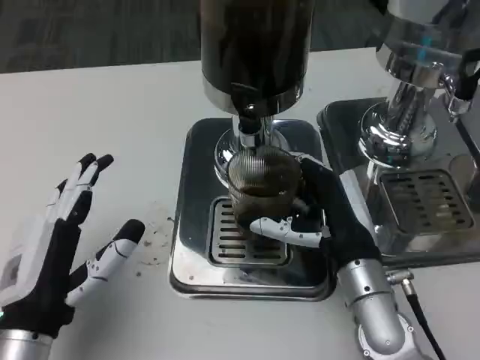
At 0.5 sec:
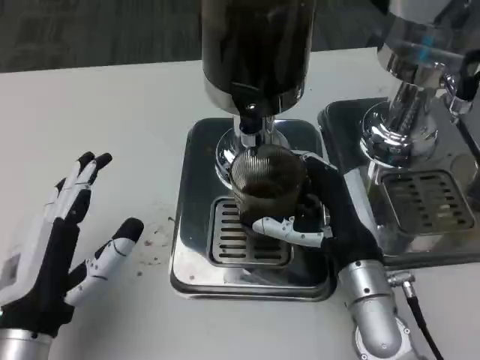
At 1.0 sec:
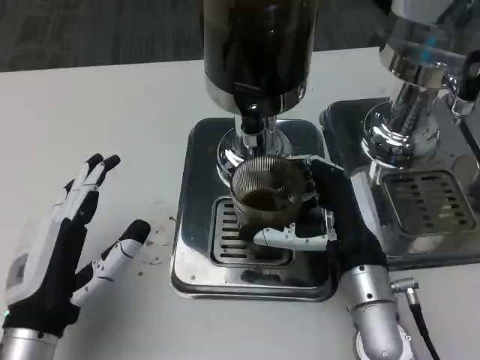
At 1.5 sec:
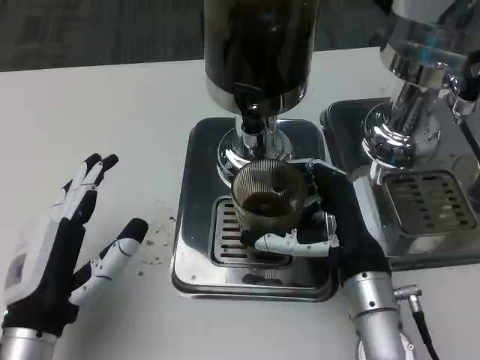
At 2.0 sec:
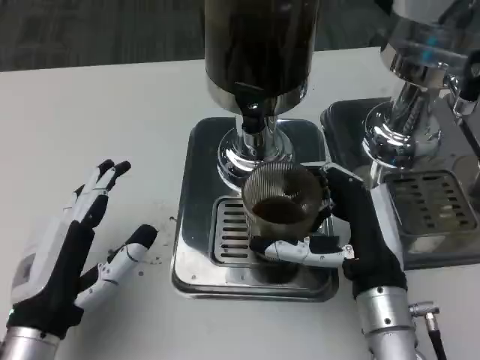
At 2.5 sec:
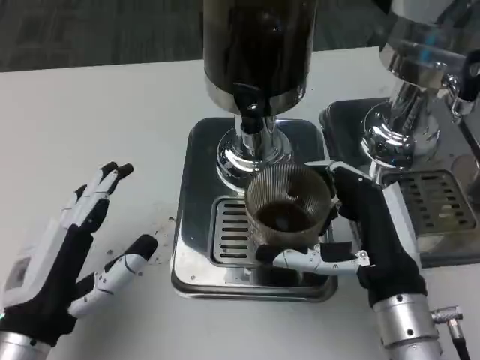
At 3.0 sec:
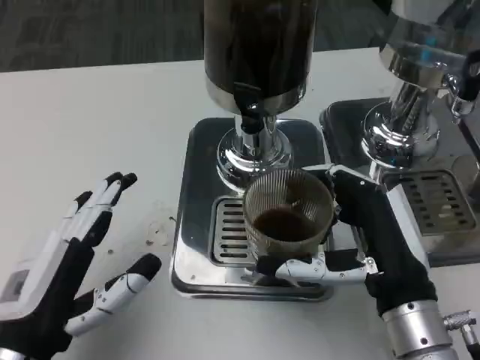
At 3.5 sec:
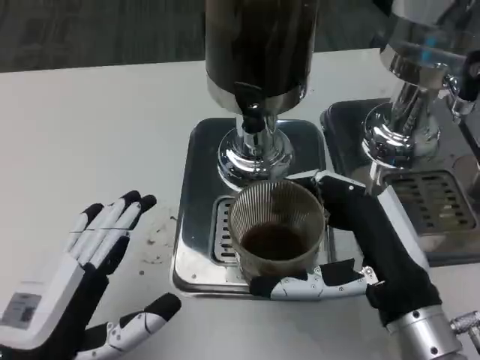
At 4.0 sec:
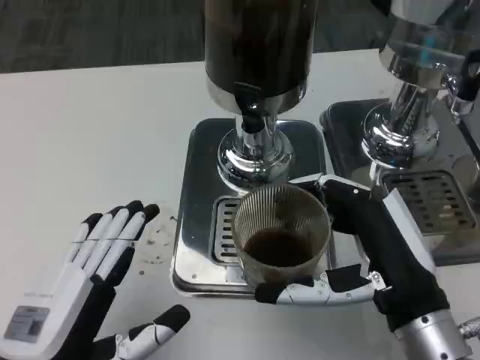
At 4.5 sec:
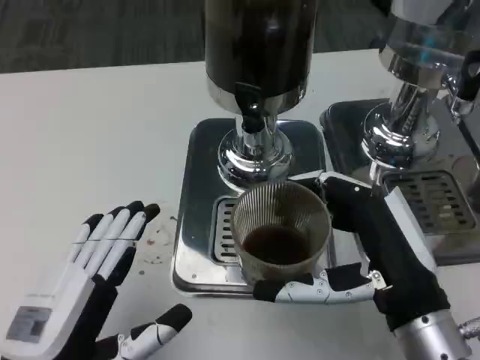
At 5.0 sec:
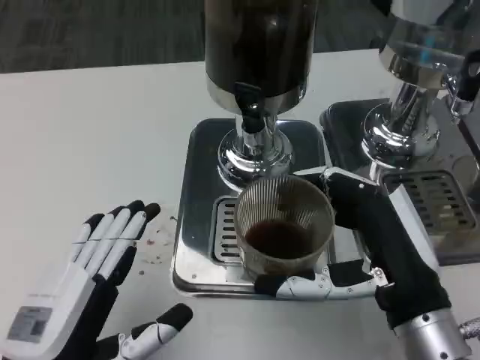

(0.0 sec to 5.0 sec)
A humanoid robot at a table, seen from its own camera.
Task of the whole recording: Grasp the cup under the faucet to collect the drink, then remove the cup.
0.0 sec - 2.5 sec: The right hand is displaced backward by approximately 5 cm.
2.5 sec - 5.0 sec: The left hand heads backward, covering about 5 cm.

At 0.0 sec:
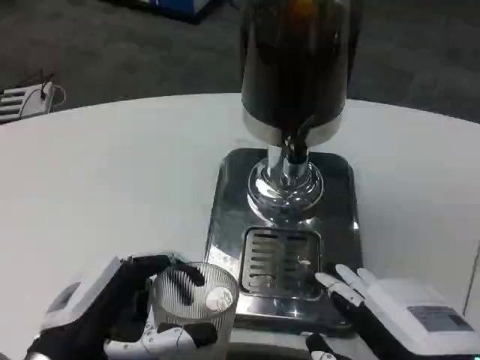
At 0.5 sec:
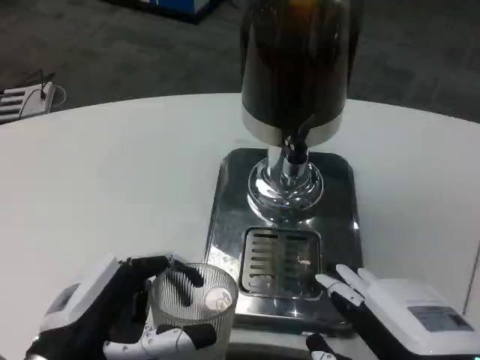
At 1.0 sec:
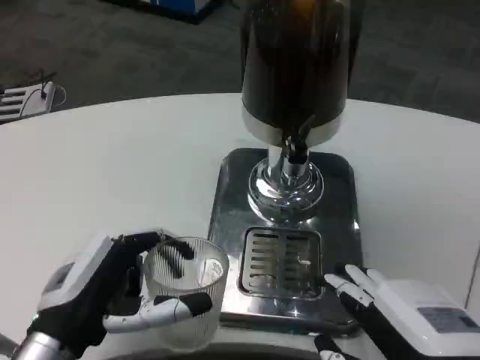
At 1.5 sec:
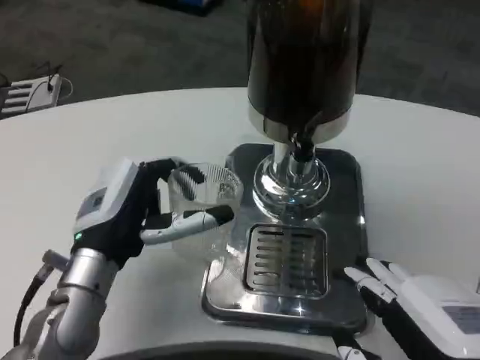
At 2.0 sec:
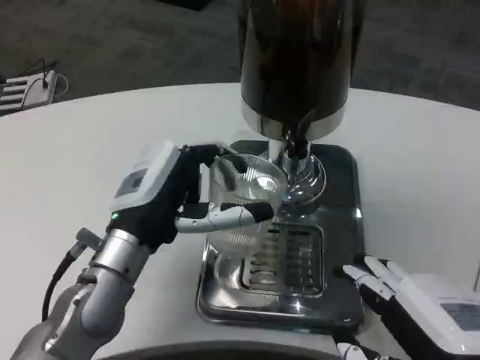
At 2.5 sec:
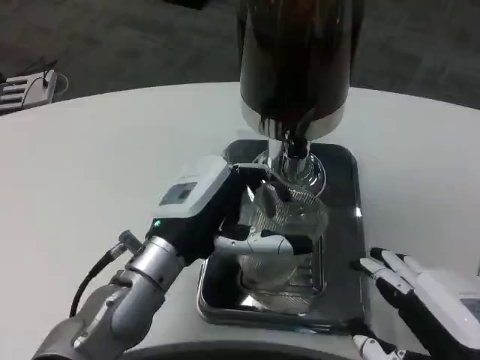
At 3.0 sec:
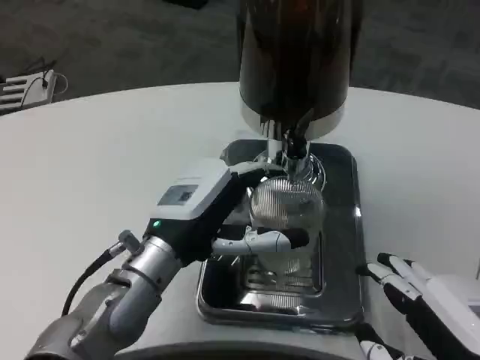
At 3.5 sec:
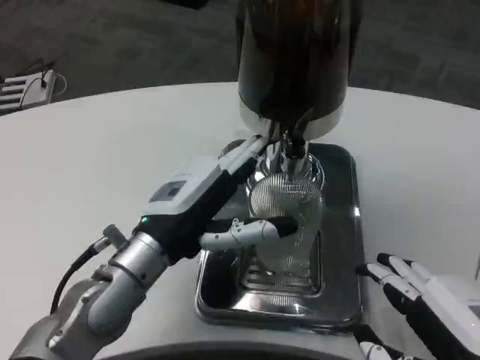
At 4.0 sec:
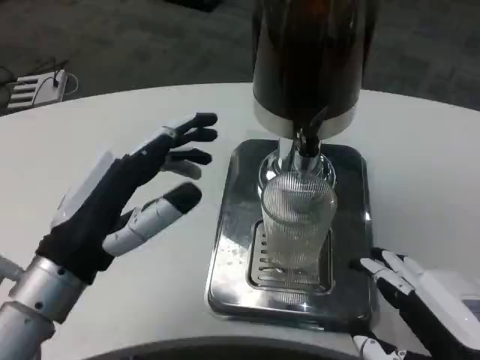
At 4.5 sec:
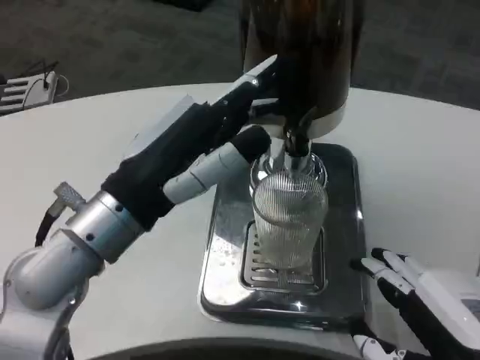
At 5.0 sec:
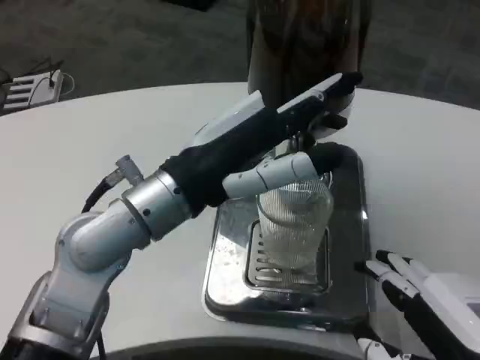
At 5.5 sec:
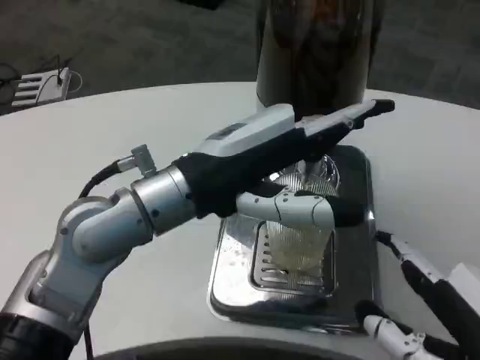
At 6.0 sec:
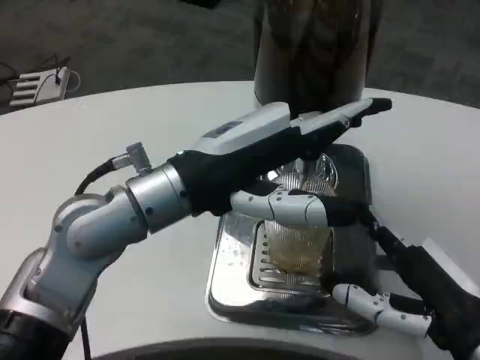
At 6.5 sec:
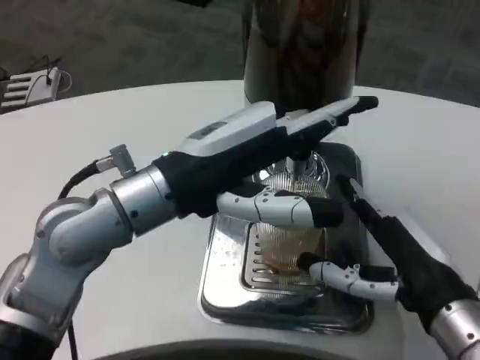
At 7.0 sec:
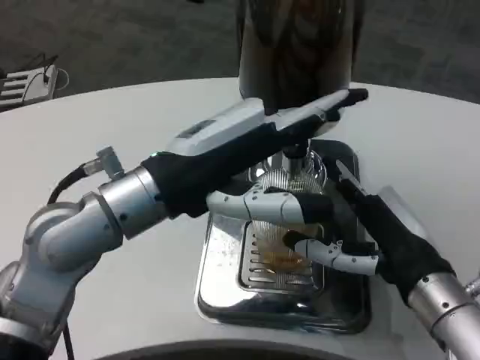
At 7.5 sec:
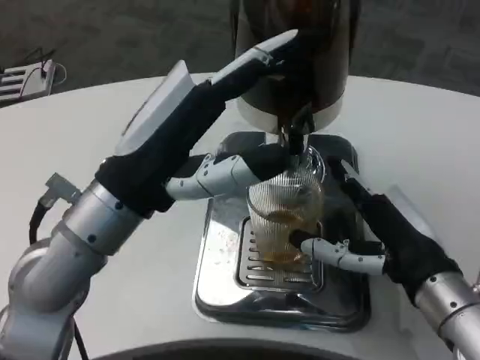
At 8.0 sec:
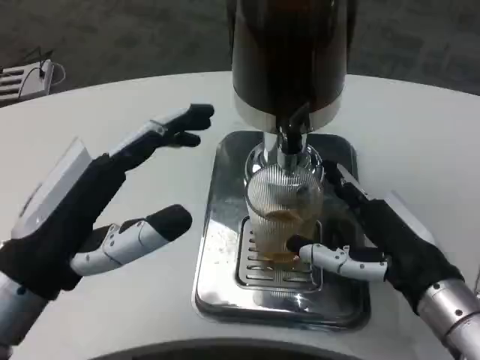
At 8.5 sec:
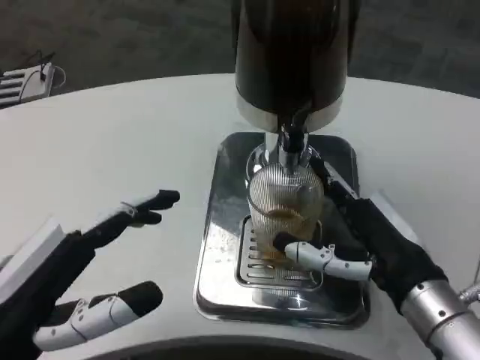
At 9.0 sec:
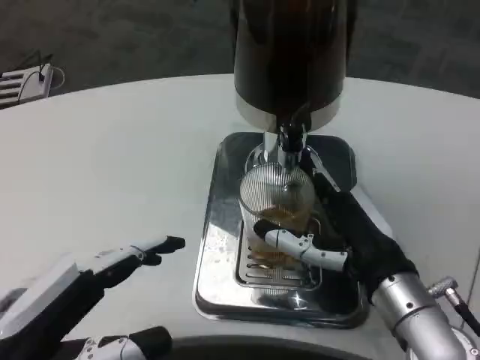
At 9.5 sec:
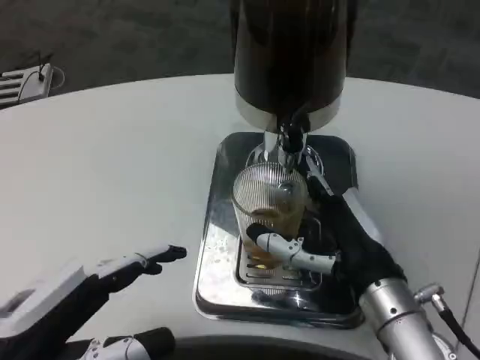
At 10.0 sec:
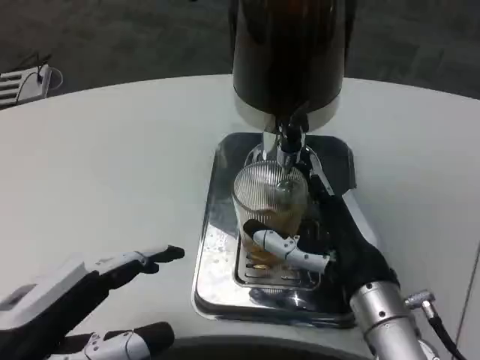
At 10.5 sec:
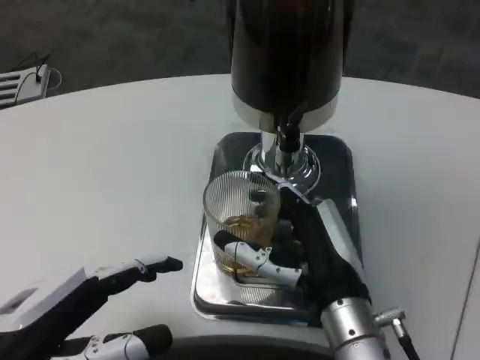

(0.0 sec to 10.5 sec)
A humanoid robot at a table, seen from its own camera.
Task of the whole recording: Grasp the cup under the faucet to collect the drink, then remove the cup.
0.0 sec - 2.0 sec: The left hand goes about 10 cm forward and to the right.
2.0 sec - 4.0 sec: The left hand moves backward, roughly 5 cm.
4.0 sec - 6.5 sec: The left hand heads upward and to the right, covering approximately 10 cm; the right hand goes some 10 cm forward.
6.5 sec - 8.5 sec: The left hand moves backward, to the left and downward, about 20 cm.
8.5 sec - 10.5 sec: The right hand shifts approximately 10 cm to the left.

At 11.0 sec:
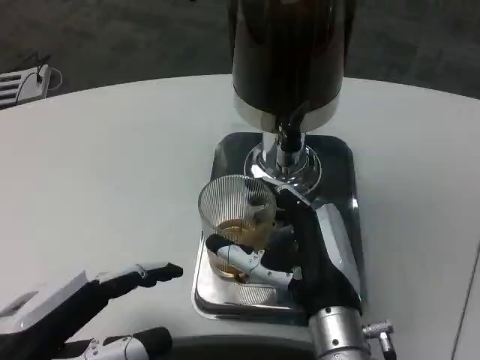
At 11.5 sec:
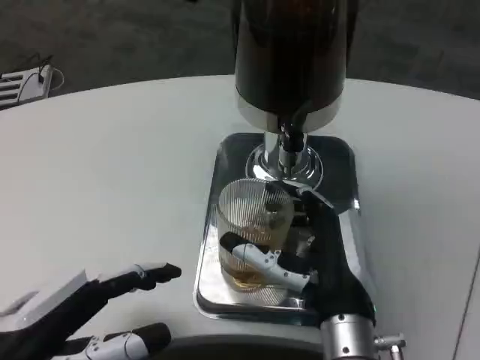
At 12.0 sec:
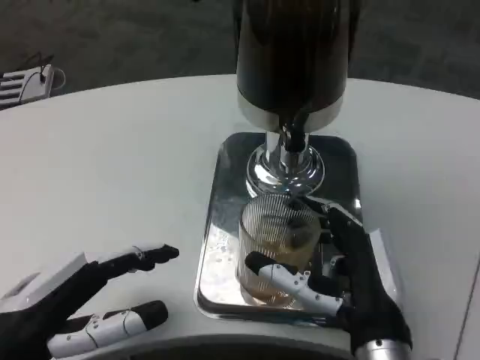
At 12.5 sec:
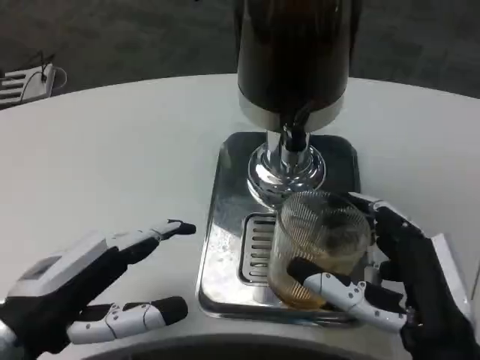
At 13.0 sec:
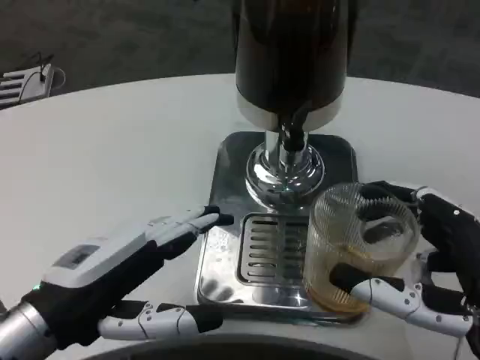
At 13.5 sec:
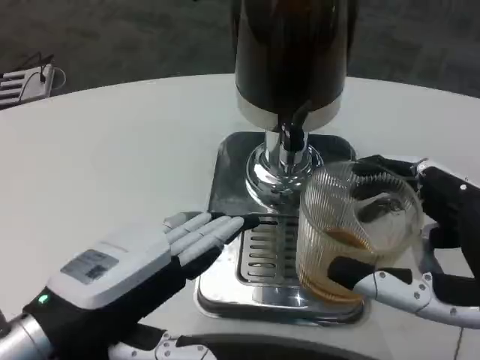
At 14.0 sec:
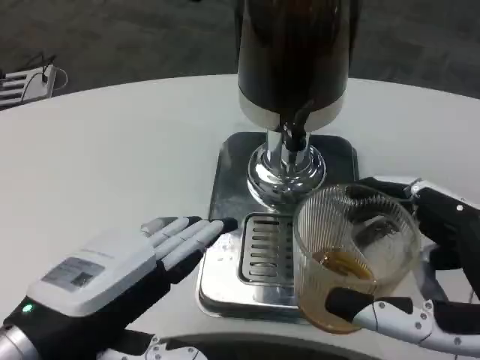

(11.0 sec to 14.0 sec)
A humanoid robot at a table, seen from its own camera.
Task of the whole recording: Grasp the cup under the faucet to collect the drink, then remove the cup.
11.0 sec - 12.5 sec: The right hand goes some 10 cm to the right and backward.
12.5 sec - 14.0 sec: The right hand moves backward and upward, roughly 10 cm. The left hand shifts by about 5 cm.

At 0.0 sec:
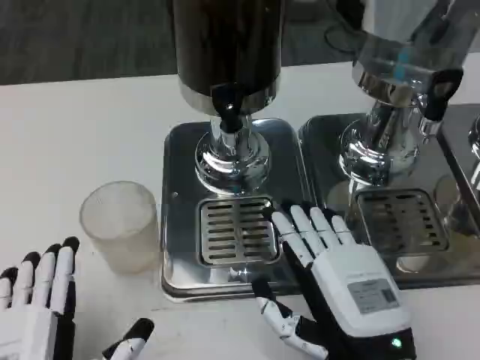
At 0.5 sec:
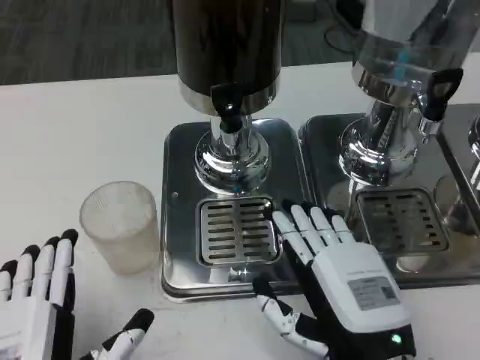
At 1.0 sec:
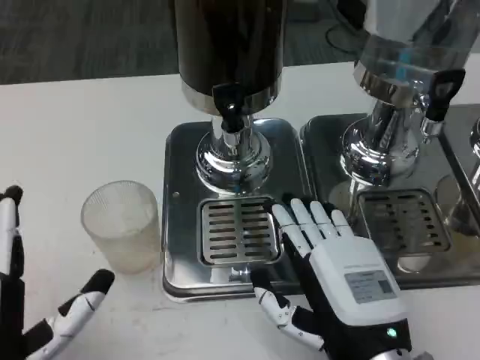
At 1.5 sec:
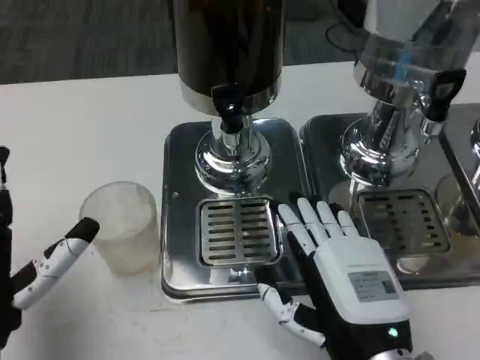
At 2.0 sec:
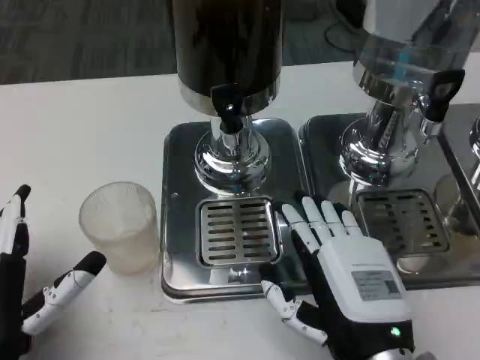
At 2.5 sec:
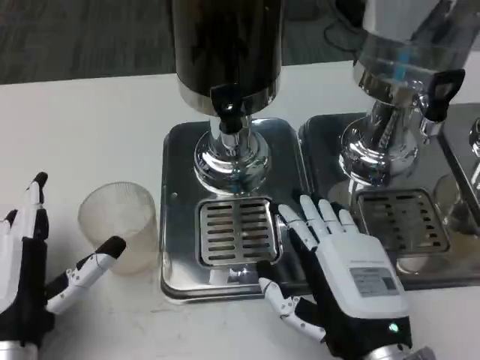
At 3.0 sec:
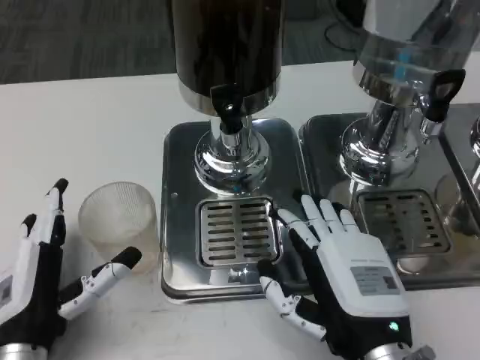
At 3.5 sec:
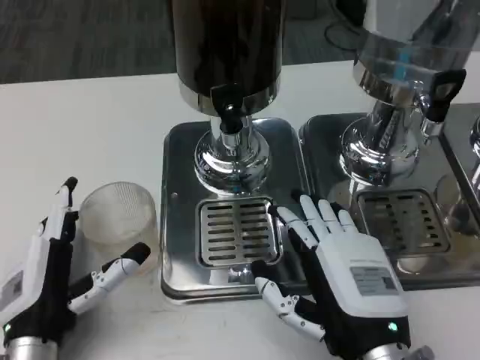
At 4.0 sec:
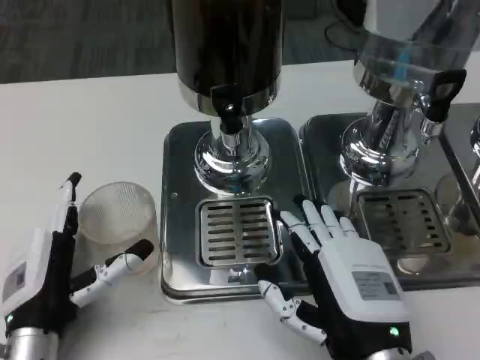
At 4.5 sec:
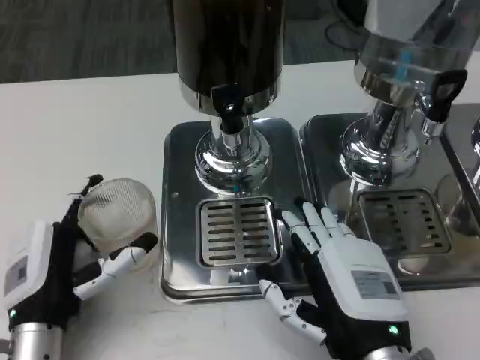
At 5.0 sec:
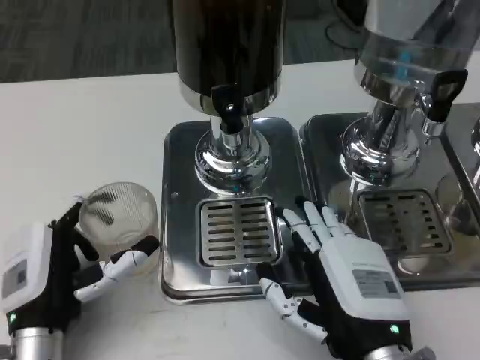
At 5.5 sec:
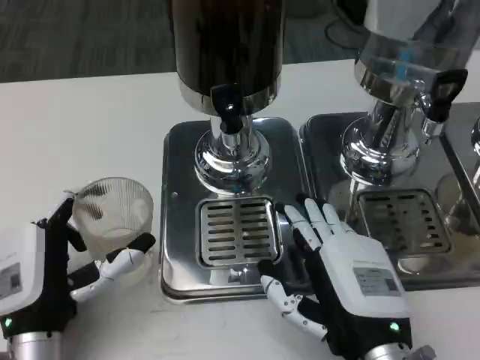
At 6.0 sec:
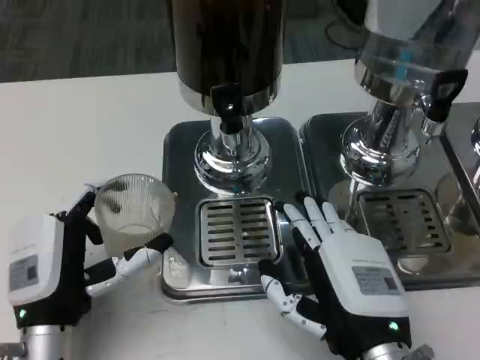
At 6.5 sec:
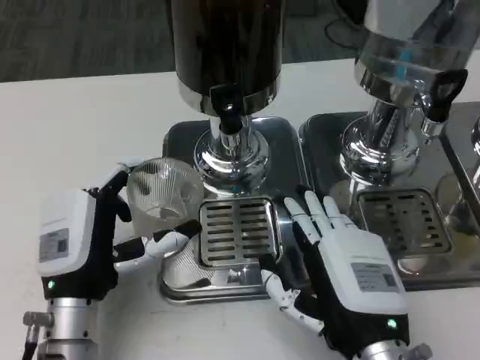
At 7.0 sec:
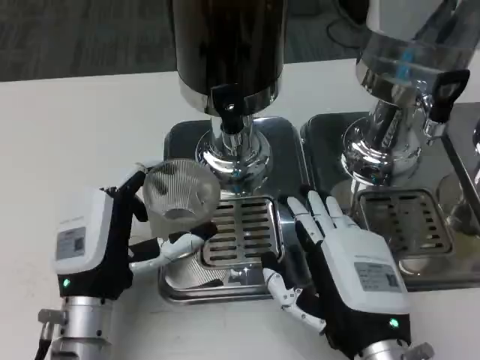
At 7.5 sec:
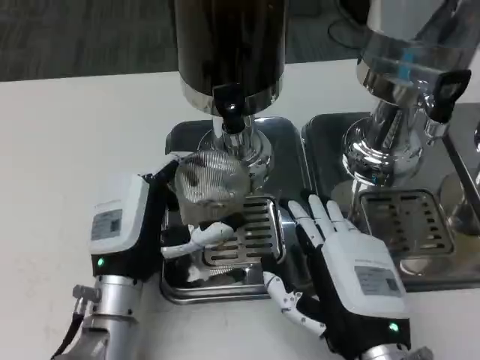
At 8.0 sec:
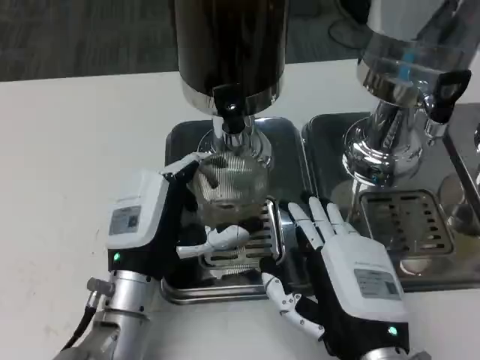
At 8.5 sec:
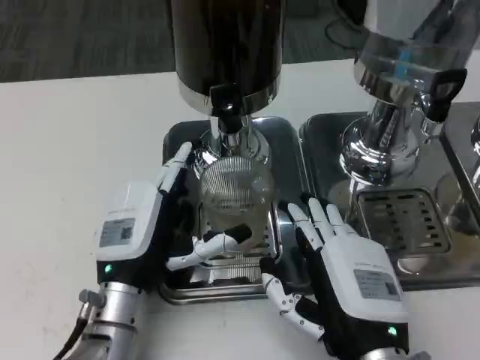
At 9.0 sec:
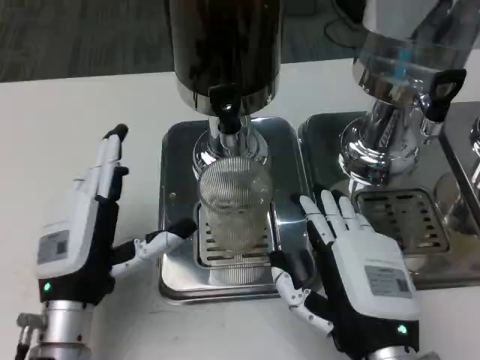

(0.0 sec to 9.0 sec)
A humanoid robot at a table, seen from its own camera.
Task of the whole recording: Grasp the cup under the faucet to collect the drink, then remove the cup.
0.0 sec - 2.0 sec: The left hand goes about 10 cm forward and to the left.
2.0 sec - 4.5 sec: The left hand ends up about 5 cm from where it was.
4.5 sec - 7.0 sec: The left hand shifts by some 5 cm.
